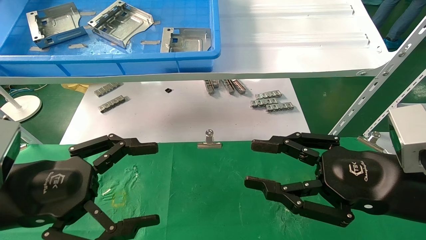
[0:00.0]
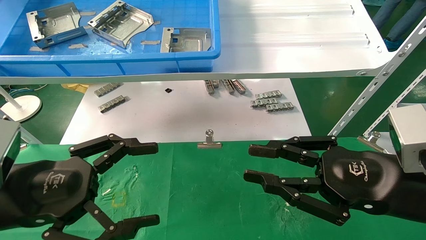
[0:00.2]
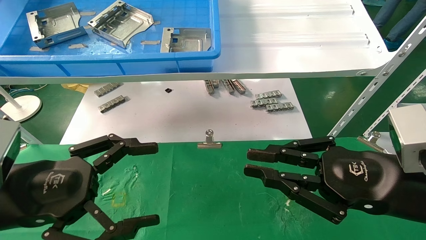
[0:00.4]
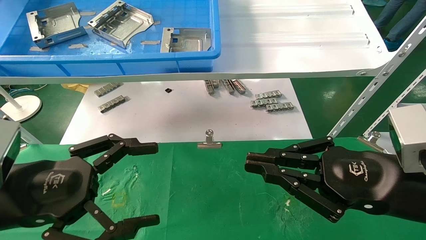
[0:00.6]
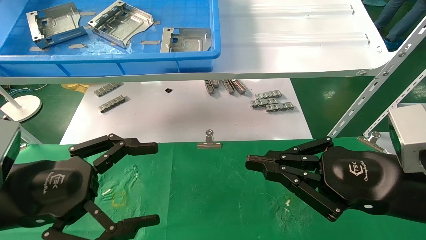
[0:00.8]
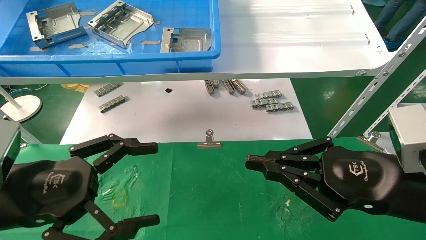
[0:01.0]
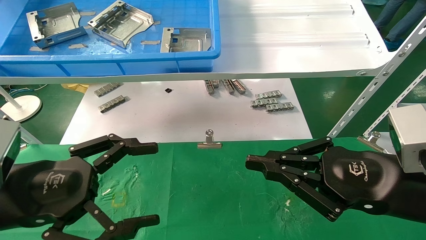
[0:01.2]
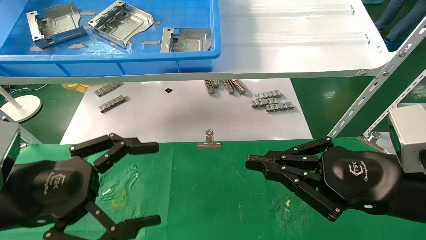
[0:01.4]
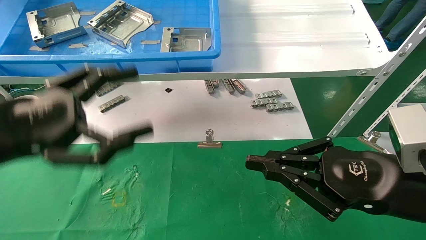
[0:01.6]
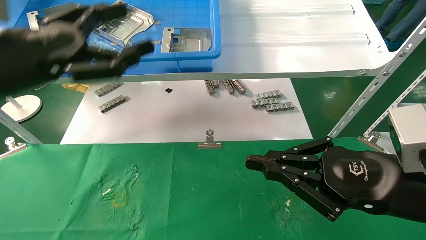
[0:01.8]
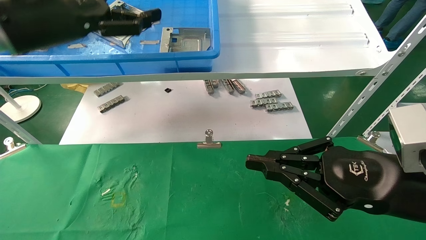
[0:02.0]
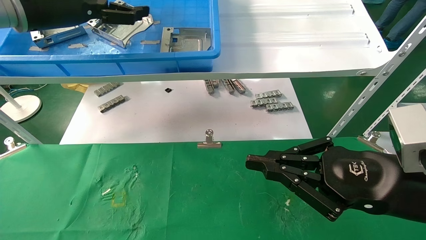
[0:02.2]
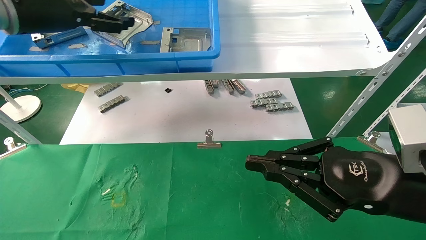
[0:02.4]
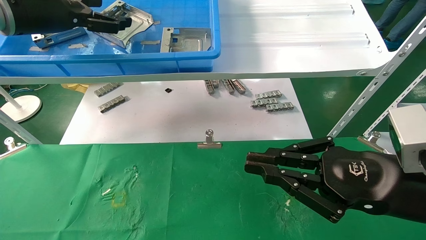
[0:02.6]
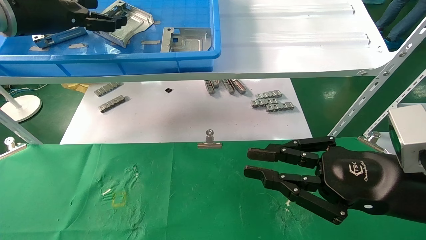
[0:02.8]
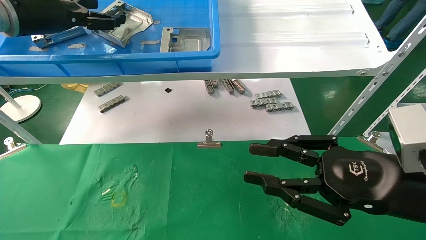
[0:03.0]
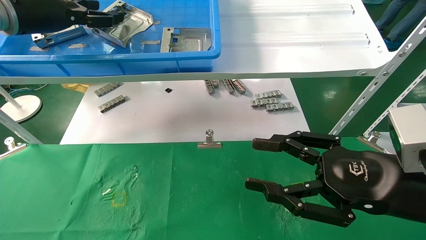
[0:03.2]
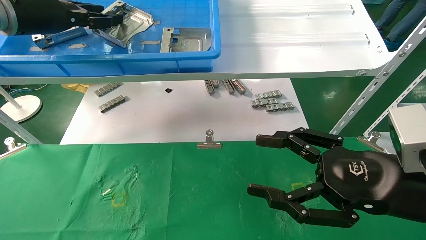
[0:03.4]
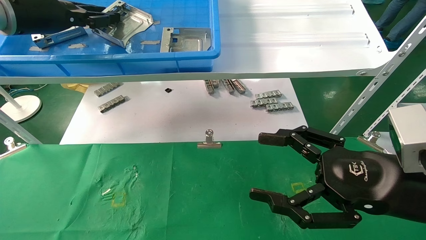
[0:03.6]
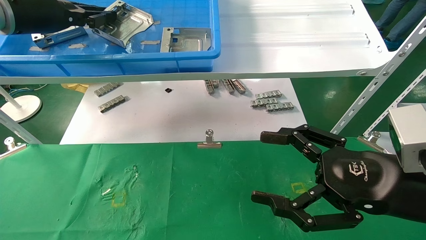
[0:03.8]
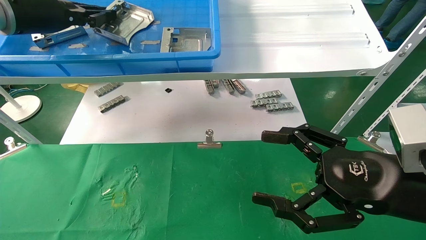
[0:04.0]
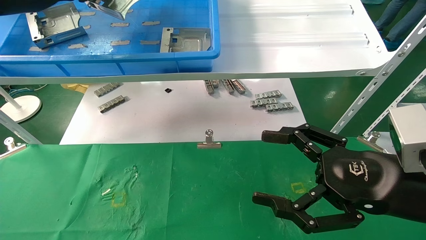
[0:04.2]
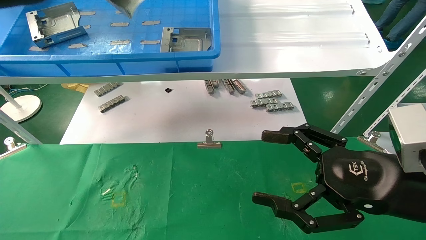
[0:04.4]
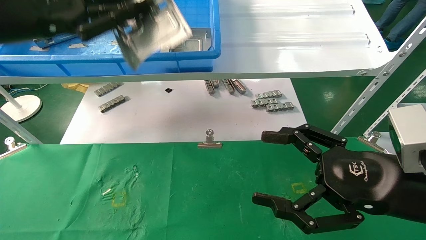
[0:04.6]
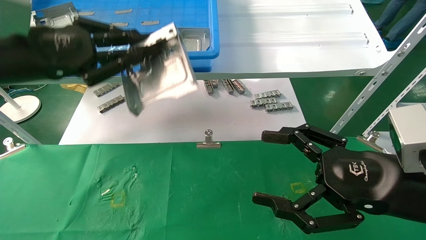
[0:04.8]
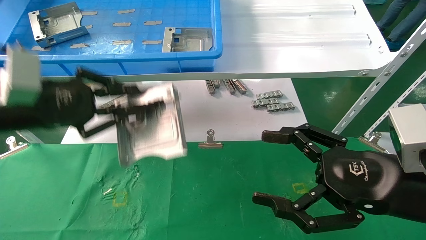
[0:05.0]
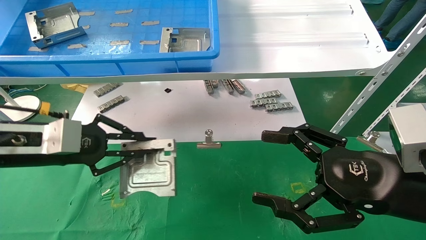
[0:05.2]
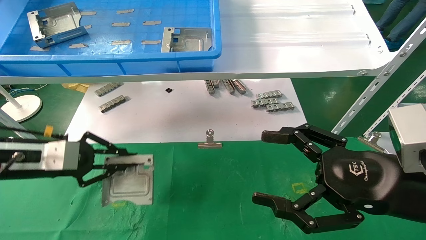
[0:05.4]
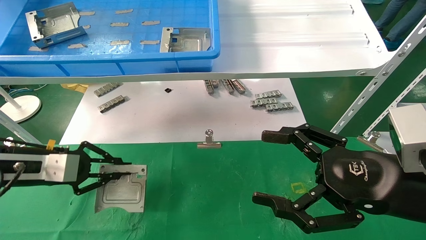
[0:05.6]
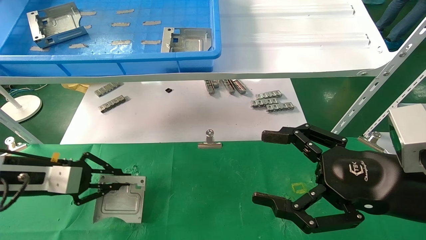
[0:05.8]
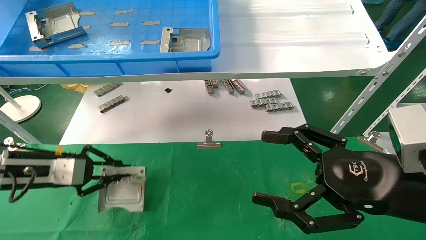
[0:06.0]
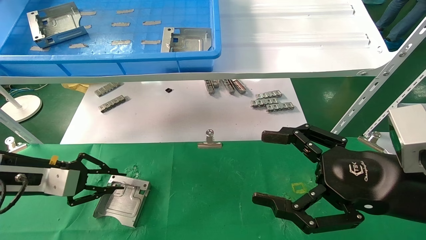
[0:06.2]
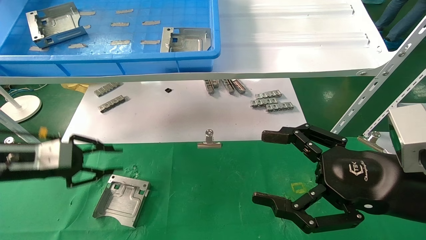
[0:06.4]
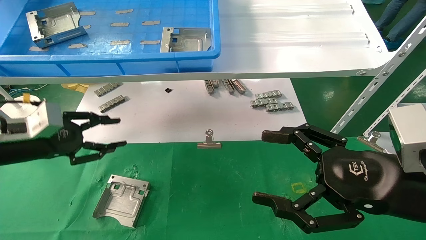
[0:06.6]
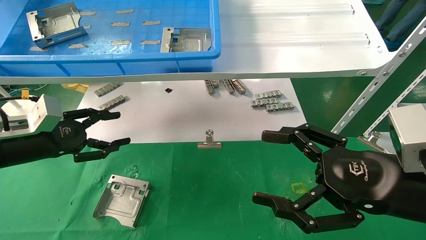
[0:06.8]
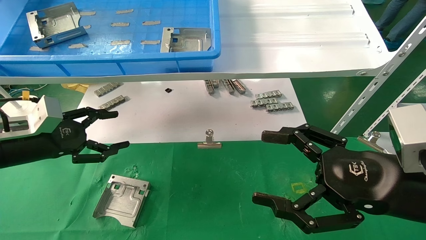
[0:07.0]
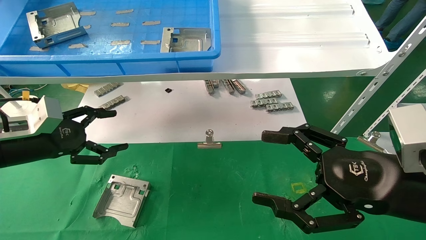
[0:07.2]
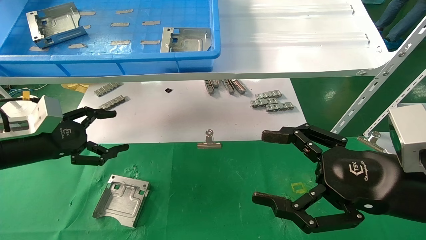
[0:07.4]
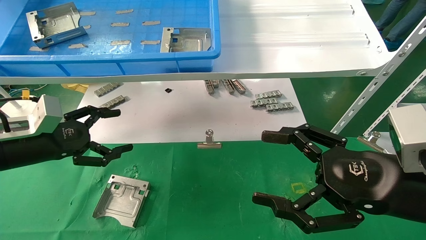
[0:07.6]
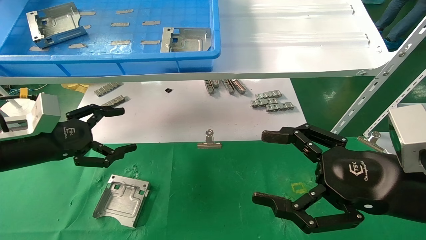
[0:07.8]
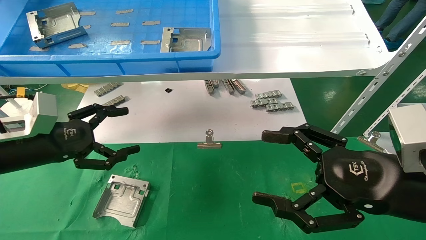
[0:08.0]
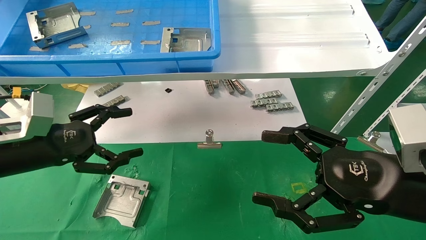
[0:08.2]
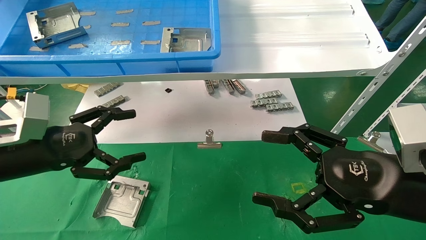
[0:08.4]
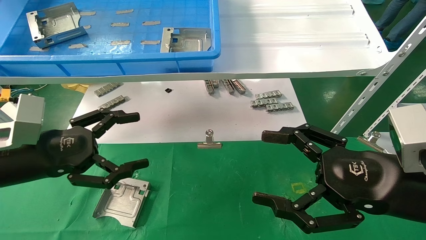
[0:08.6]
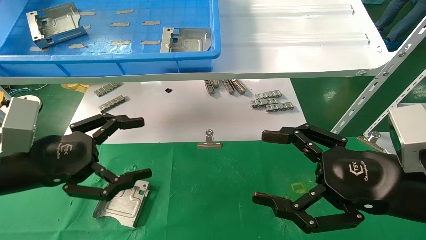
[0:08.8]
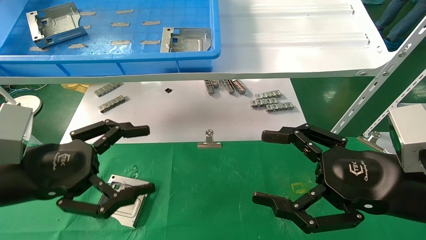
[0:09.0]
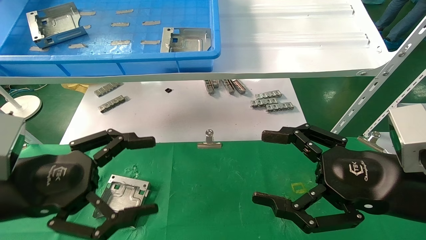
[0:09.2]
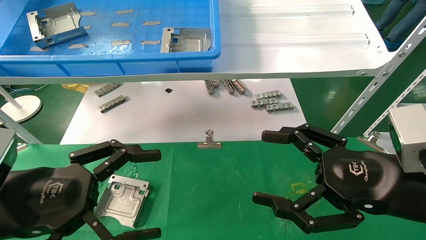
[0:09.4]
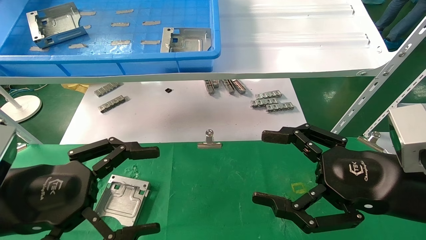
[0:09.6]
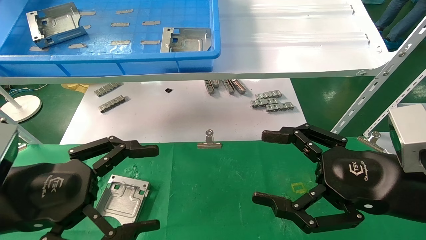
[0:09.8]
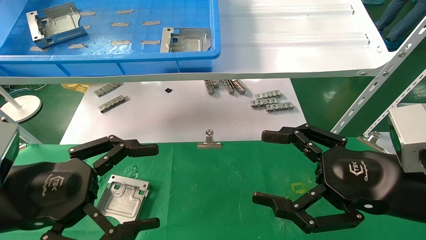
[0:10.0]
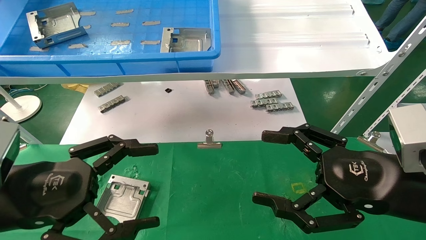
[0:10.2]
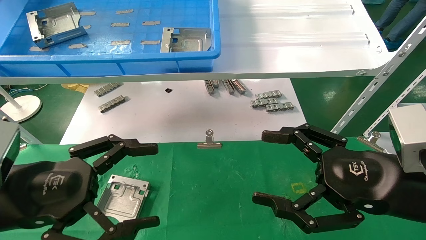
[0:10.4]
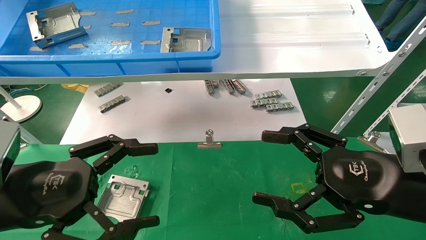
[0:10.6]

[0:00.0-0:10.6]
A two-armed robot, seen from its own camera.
Task of the whole recording: use the mechanical arm to pick up the parts and place them on the table.
Step, 0:01.8 to 0:04.0: Pick up the hard drive bracket from the feeding area.
Step, 0:04.2 to 0:06.2: Place the hard drive bracket into the box.
0:00.0 to 0:01.6: The right gripper closes its fingers; the left gripper goes some 5 cm upward.
0:01.6 to 0:03.0: The left gripper shifts some 20 cm forward and upward.
0:03.0 to 0:04.6: The left gripper moves backward, approximately 10 cm, and closes up. Meanwhile the right gripper opens.
0:04.6 to 0:06.0: The left gripper travels downward by some 25 cm.
0:06.0 to 0:07.6: The left gripper opens its fingers.
0:07.6 to 0:09.0: The left gripper heads backward and to the right, covering roughly 15 cm.
0:09.0 to 0:10.6: The grippers make only small movements.

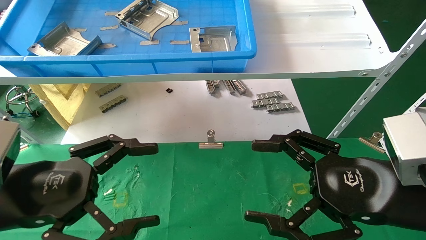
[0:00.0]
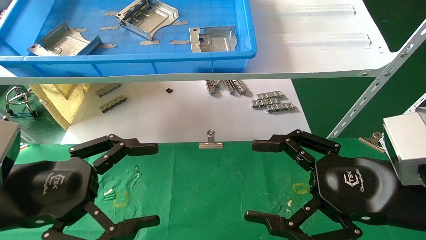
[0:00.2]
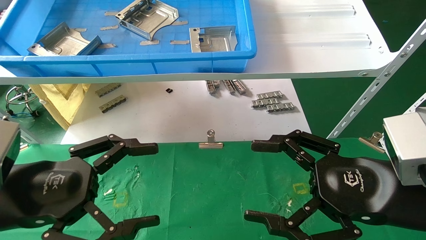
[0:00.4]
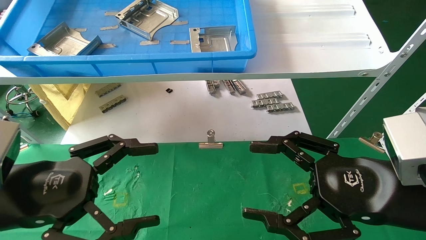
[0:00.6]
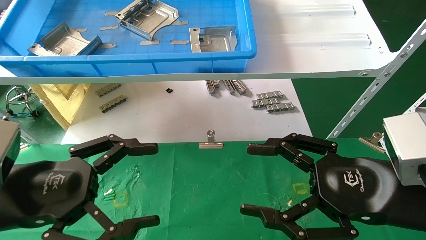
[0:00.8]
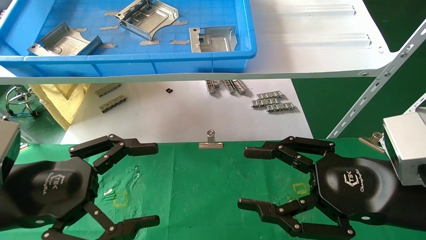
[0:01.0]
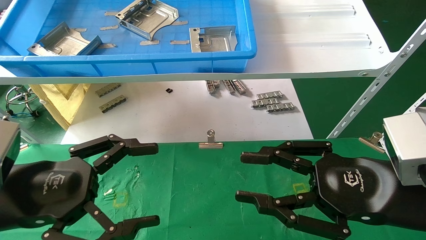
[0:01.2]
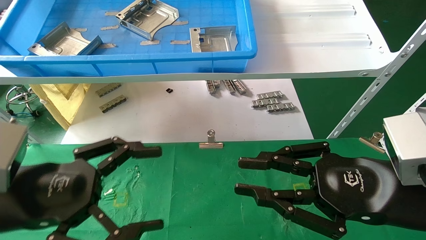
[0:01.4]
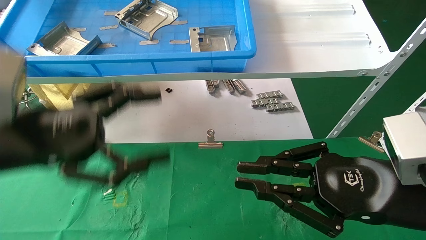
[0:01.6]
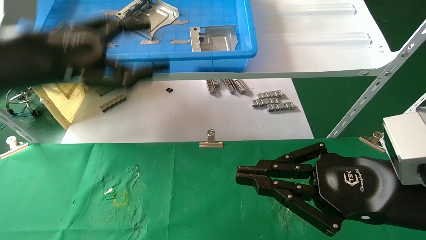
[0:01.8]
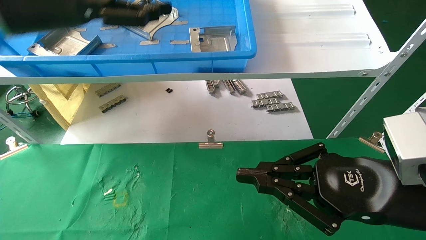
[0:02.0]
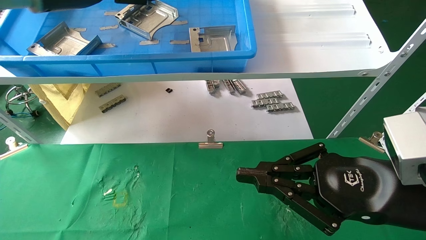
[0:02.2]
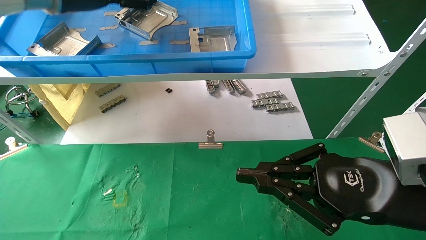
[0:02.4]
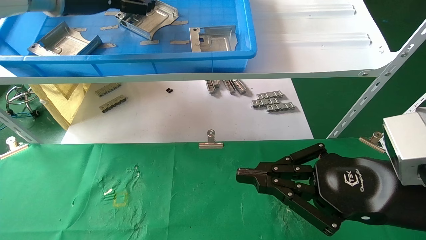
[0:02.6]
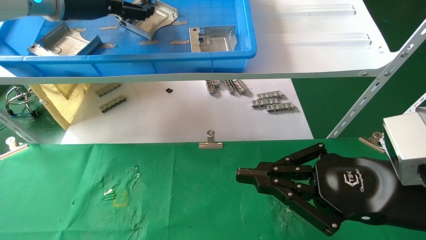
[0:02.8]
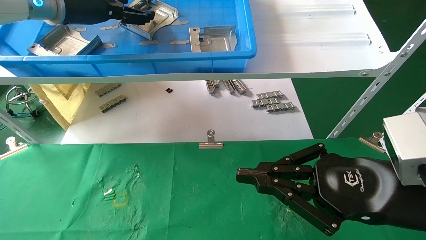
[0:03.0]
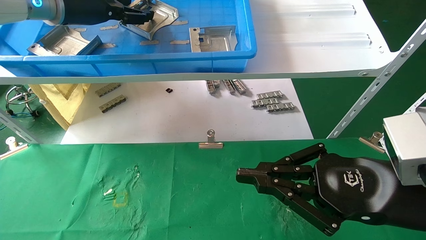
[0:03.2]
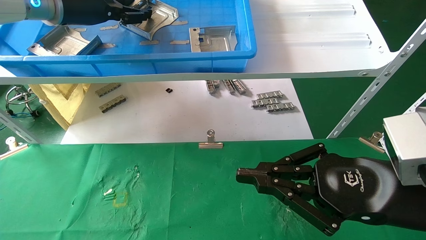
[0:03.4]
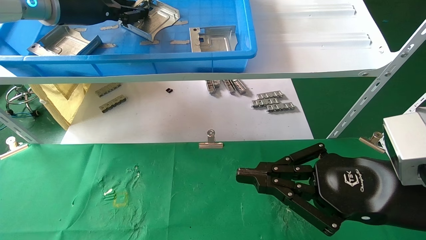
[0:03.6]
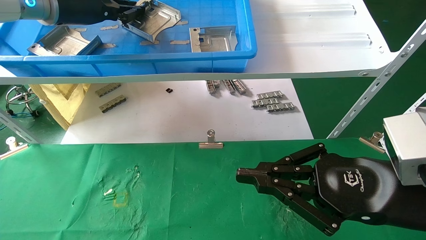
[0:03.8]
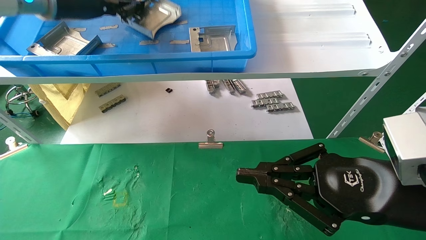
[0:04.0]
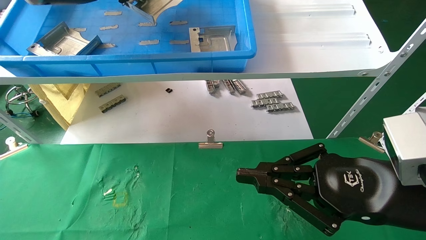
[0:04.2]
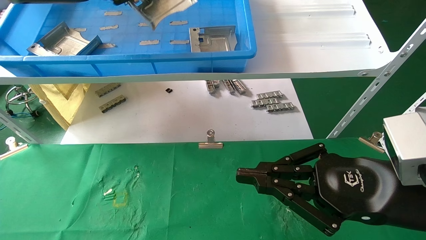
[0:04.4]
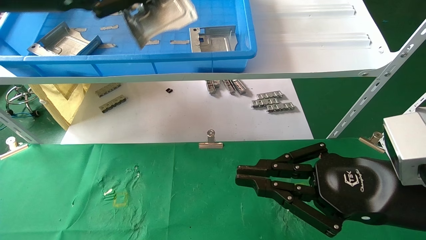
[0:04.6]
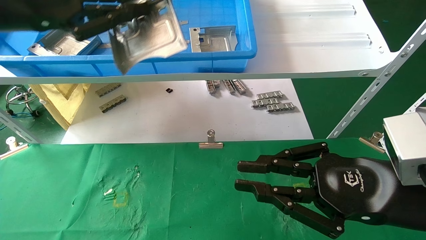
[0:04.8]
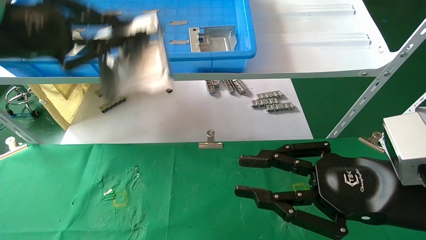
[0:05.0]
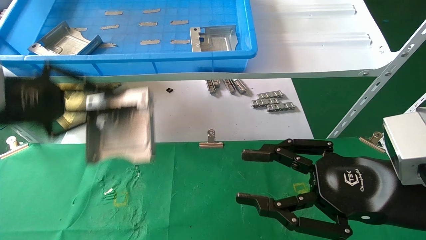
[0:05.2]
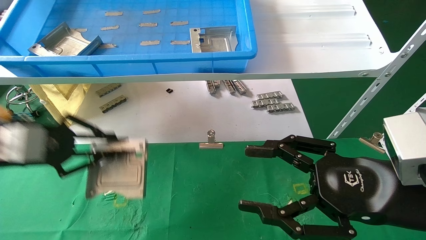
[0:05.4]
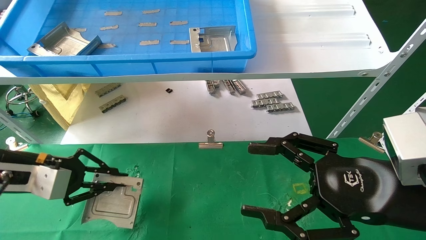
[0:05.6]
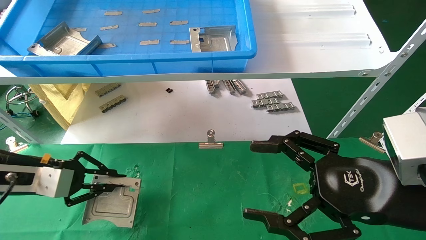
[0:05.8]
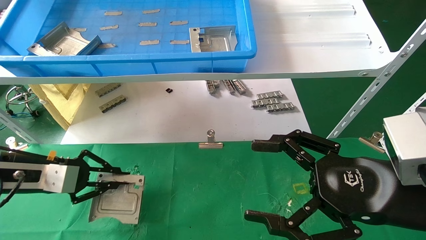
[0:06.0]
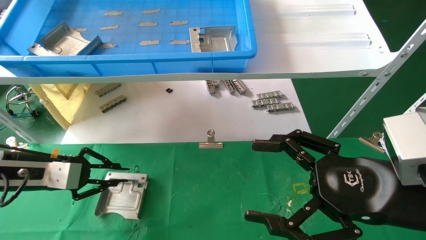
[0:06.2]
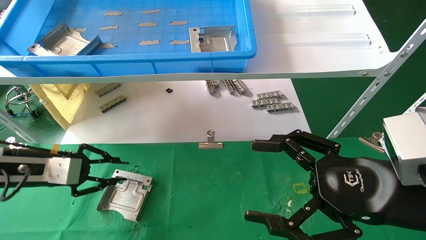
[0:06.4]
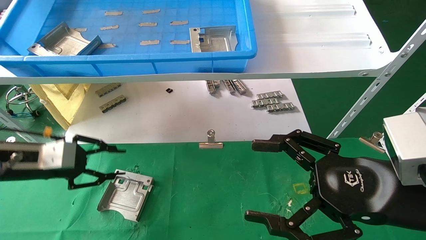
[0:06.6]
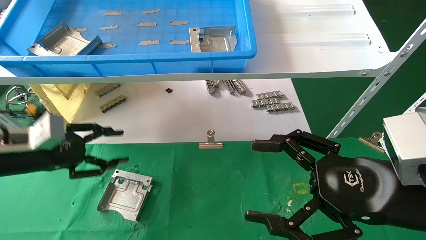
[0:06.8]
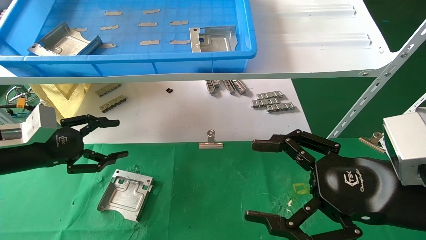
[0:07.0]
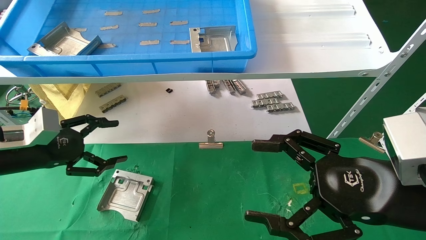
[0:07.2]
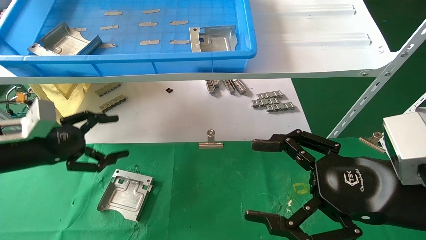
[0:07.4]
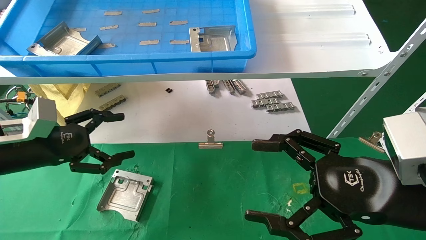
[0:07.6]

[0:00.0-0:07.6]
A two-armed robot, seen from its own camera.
Task of the whole recording: use the mechanical arm to pick up the parts and place them on the table.
Step, 0:01.8 to 0:03.8: Pick up the hard drive bracket from the feeding area.
Step, 0:04.0 to 0:06.6: Place the hard drive bracket into the box.
0:00.0 to 0:01.6: The left gripper moves upward, some 10 cm; the right gripper closes up.
0:01.6 to 0:03.0: The left gripper heads forward and upward, covering some 25 cm.
0:03.0 to 0:04.6: The left gripper moves backward, approximately 10 cm, and closes its fingers.
0:04.6 to 0:06.0: The left gripper goes approximately 25 cm downward; the right gripper opens.
0:06.0 to 0:07.6: The left gripper opens up.
